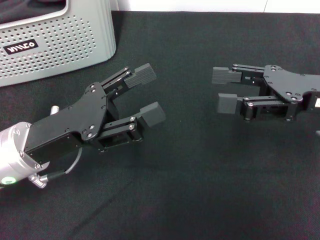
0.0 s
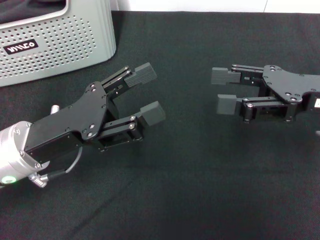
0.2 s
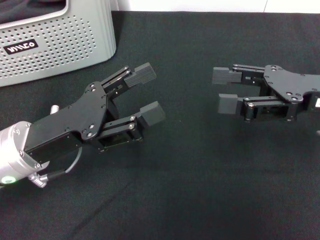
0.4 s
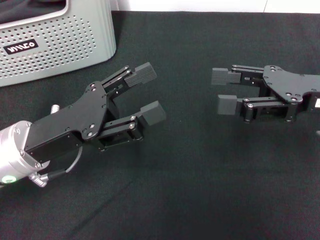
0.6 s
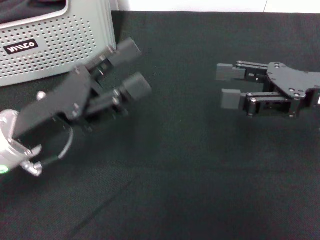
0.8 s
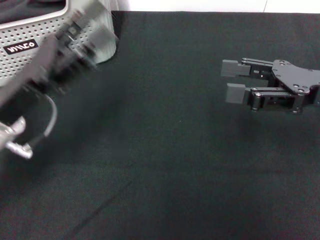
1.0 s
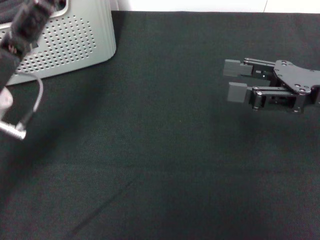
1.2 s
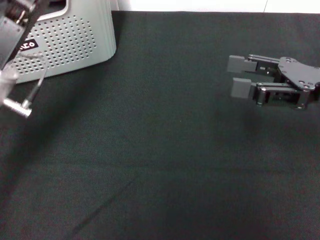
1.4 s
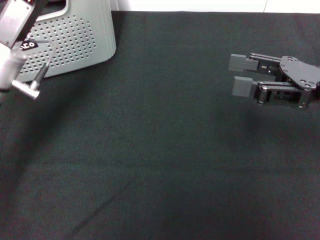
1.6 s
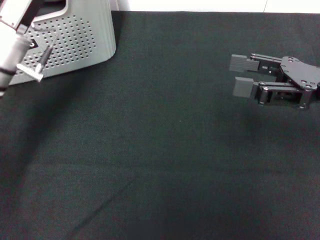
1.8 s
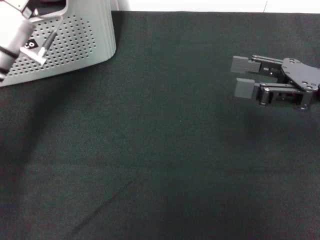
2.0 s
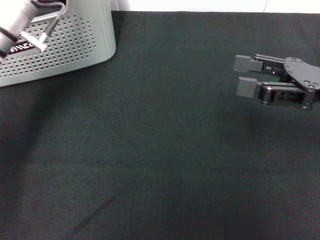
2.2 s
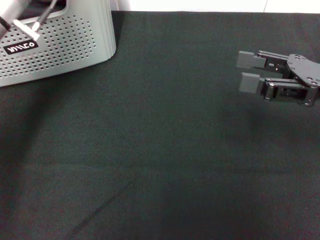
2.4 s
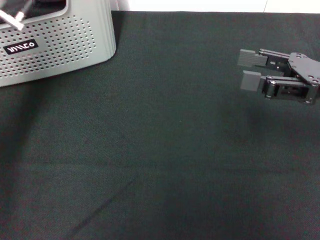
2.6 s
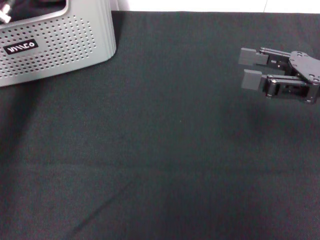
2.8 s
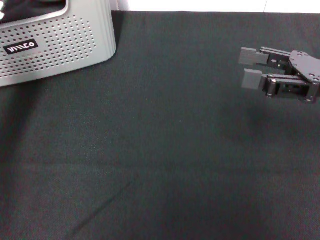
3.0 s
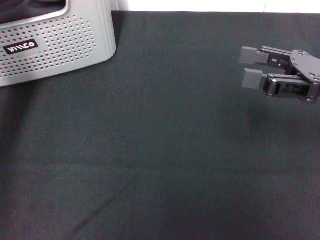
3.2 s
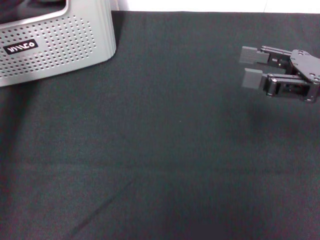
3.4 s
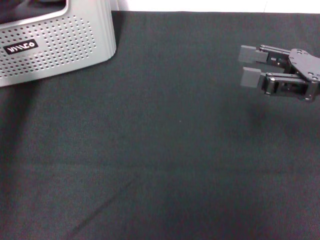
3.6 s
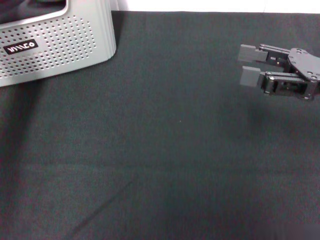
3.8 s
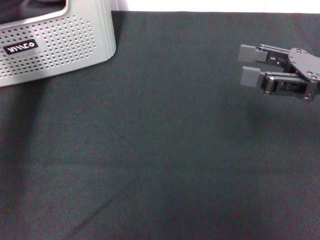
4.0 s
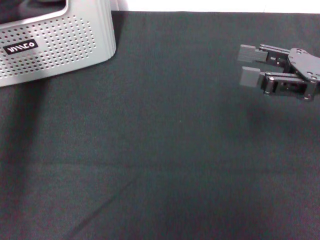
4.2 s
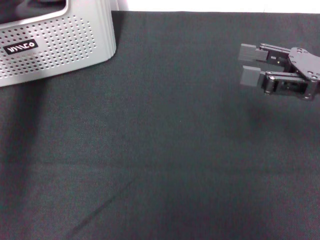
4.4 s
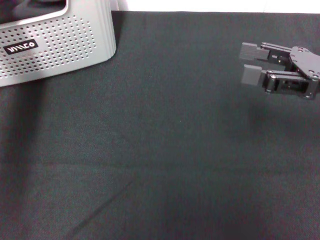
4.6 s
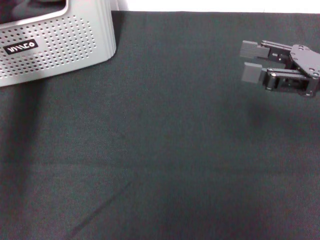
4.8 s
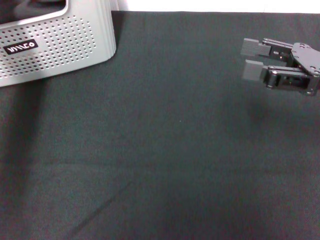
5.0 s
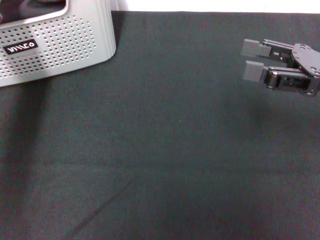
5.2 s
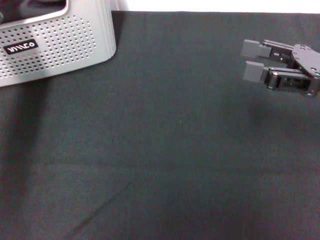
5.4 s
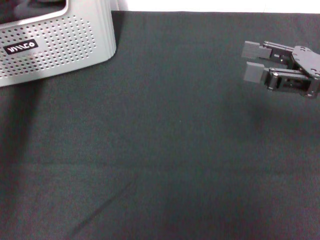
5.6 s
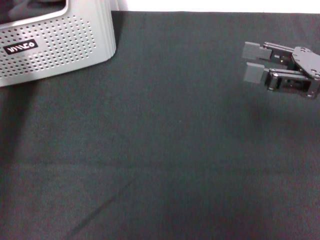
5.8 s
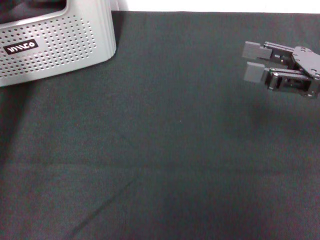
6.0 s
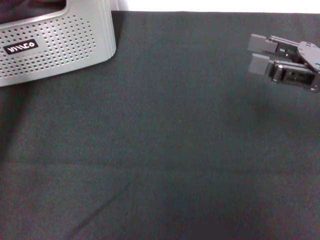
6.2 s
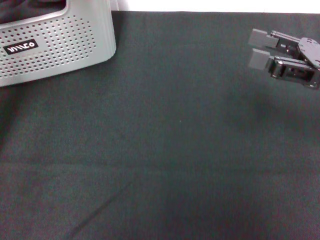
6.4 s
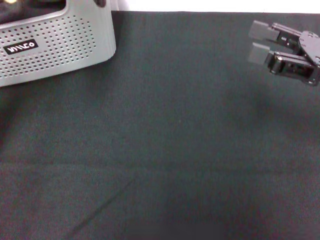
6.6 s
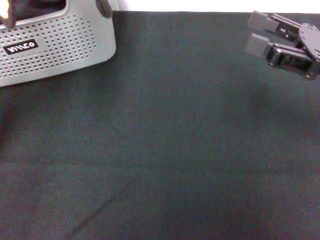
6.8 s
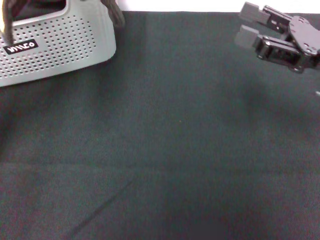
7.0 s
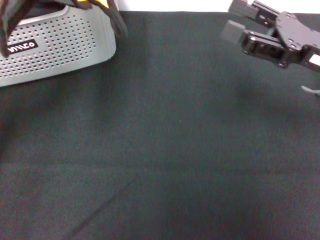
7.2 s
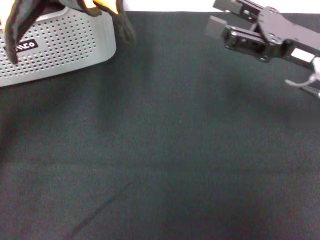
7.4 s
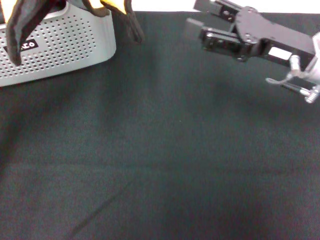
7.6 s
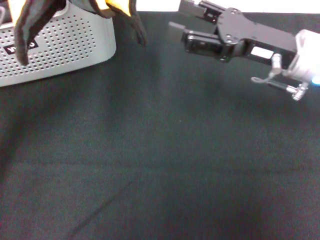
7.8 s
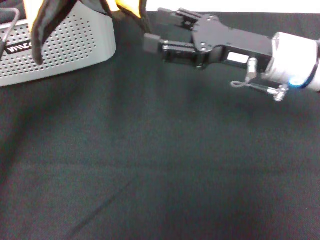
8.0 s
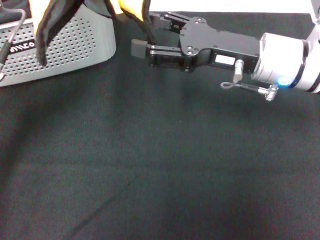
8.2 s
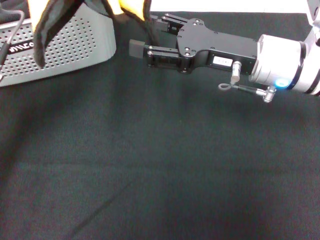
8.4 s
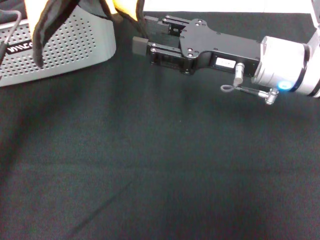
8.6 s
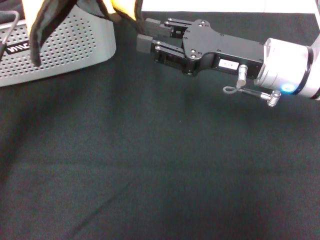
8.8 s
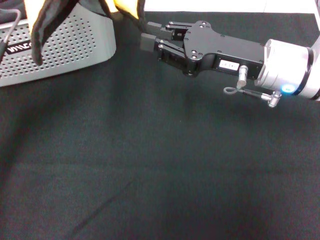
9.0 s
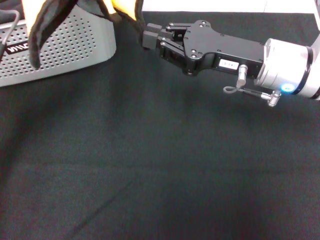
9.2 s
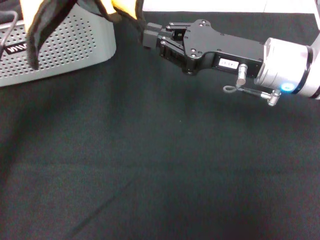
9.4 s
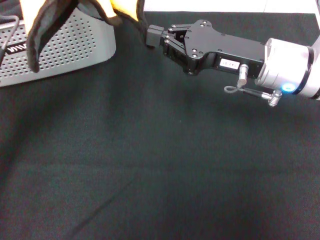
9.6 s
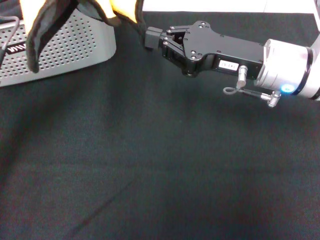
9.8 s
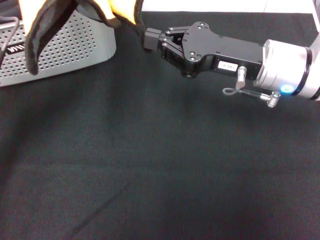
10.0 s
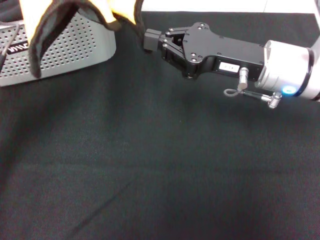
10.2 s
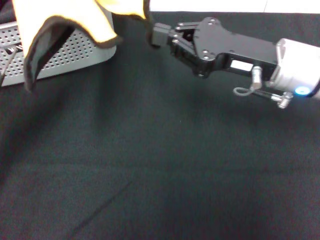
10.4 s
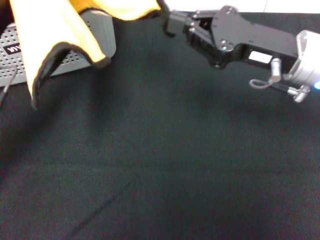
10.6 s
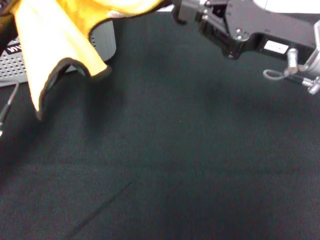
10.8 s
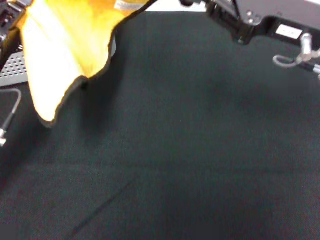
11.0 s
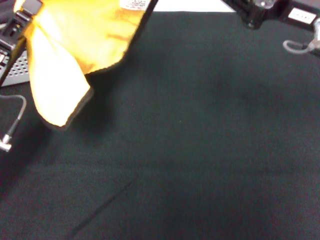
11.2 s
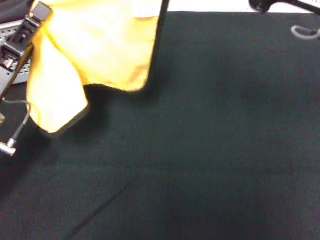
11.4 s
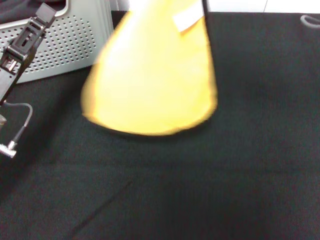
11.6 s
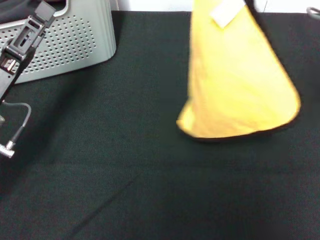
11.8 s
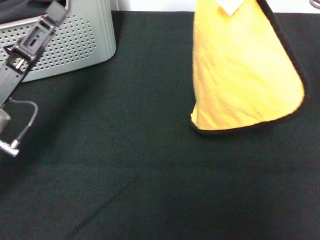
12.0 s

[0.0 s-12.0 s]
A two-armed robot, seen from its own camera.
Task of the whole recording: pick up the towel from the storage box and lay it flat on the black tablecloth.
Step, 0.0 to 5.2 s: Pick up a towel with the left gripper.
Step, 5.6 to 10.0 s: Spread the towel flat with the left gripper.
0.0 to 1.6 s: The left gripper travels forward by some 10 cm.
1.6 to 3.0 s: The left gripper heads forward and upward, covering about 10 cm.
4.4 to 6.0 s: The left gripper is displaced backward by roughly 5 cm, and closes its fingers.
6.0 to 7.6 s: The left gripper goes some 5 cm backward, while the right gripper is displaced to the left by roughly 5 cm.
7.6 to 9.0 s: The right gripper is displaced to the left by about 5 cm, and closes up.
9.0 to 10.4 s: The right gripper closes its fingers.
10.4 to 12.0 s: The right gripper moves upward and to the right, approximately 10 cm, while the left gripper travels downward by approximately 5 cm, and opens up.

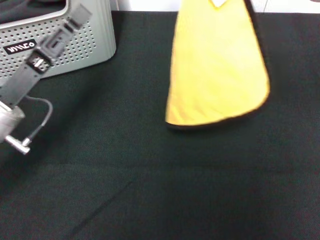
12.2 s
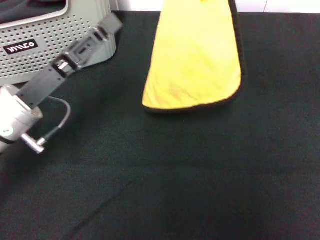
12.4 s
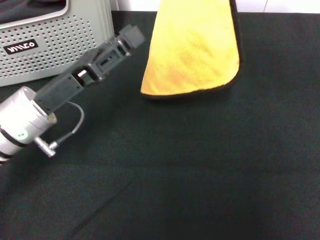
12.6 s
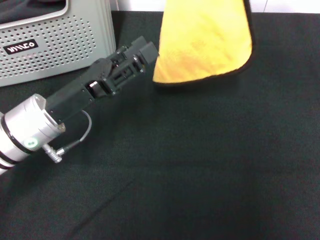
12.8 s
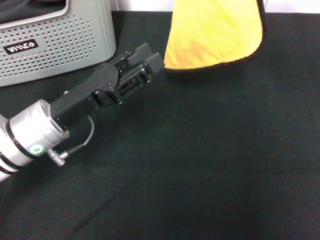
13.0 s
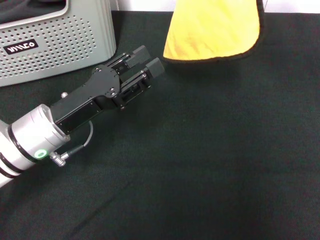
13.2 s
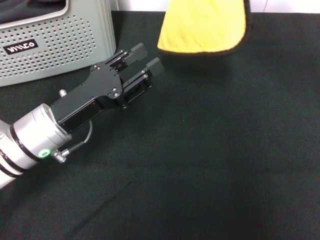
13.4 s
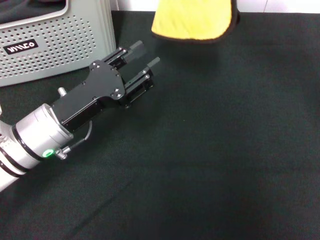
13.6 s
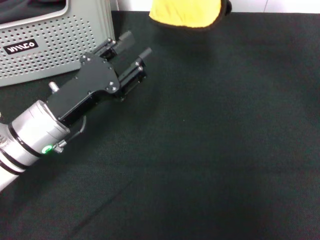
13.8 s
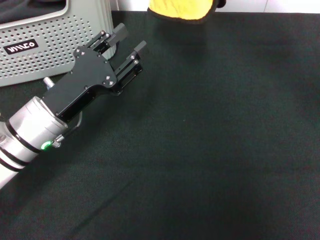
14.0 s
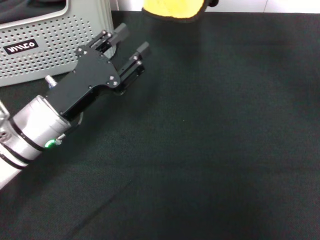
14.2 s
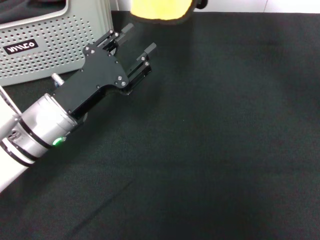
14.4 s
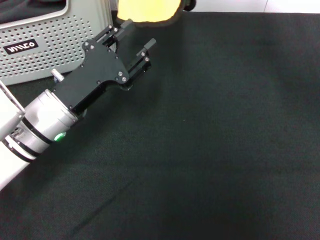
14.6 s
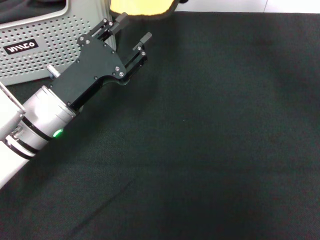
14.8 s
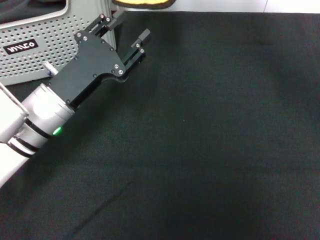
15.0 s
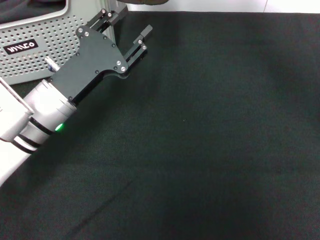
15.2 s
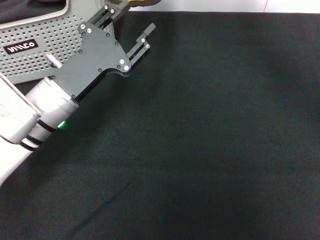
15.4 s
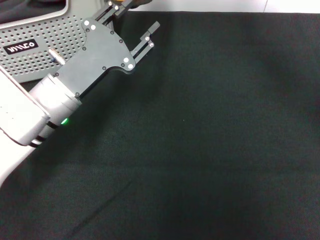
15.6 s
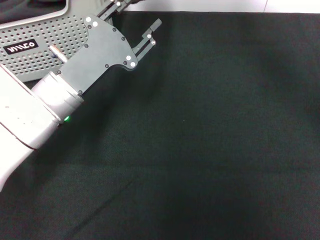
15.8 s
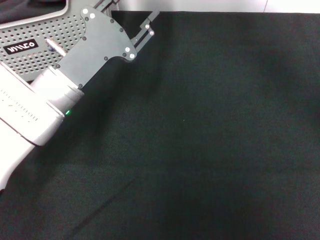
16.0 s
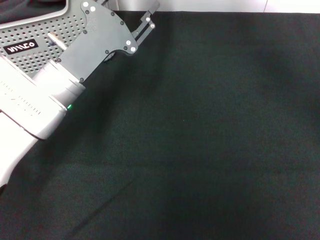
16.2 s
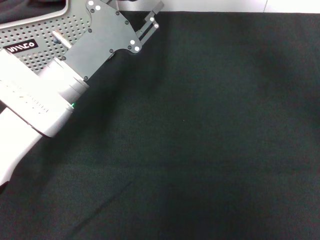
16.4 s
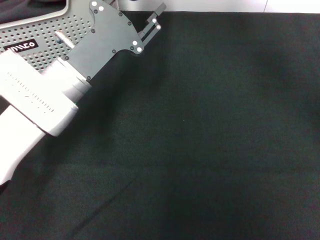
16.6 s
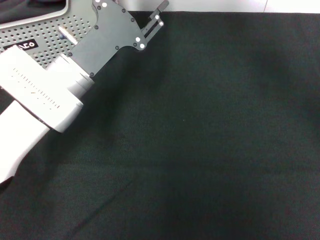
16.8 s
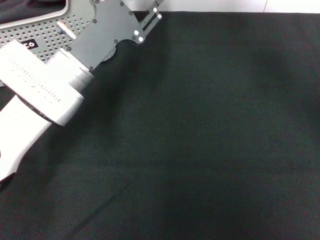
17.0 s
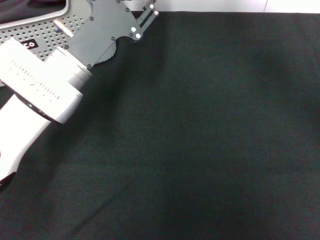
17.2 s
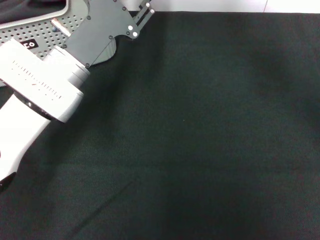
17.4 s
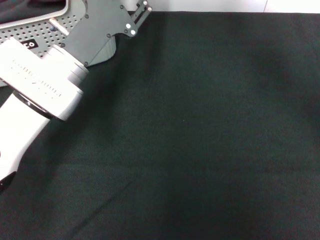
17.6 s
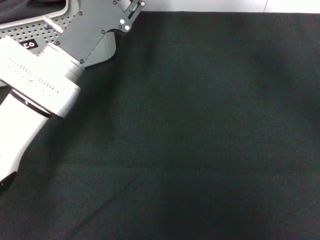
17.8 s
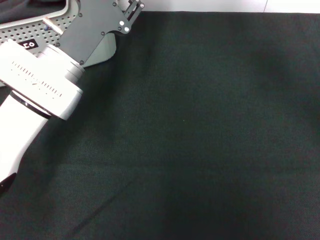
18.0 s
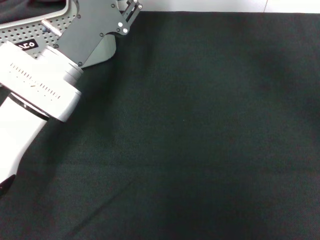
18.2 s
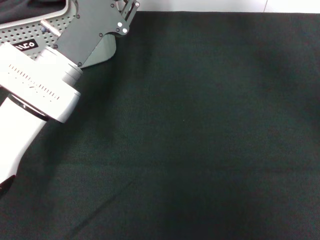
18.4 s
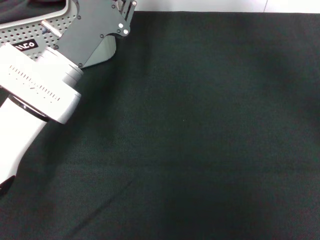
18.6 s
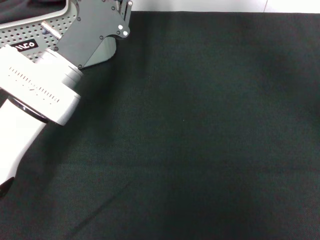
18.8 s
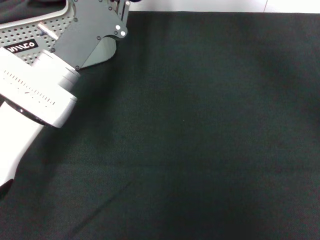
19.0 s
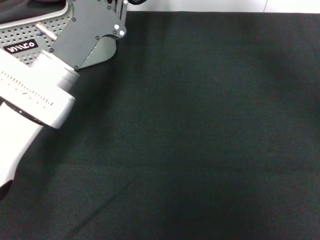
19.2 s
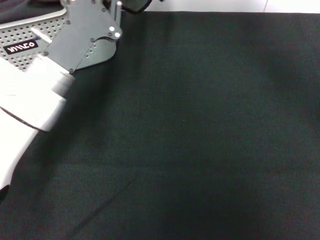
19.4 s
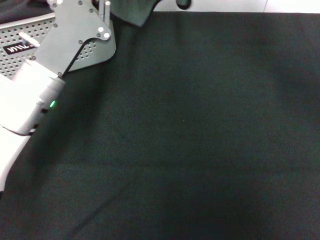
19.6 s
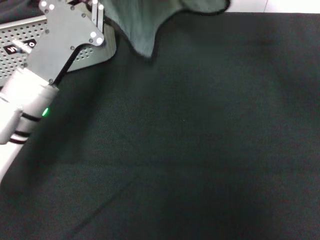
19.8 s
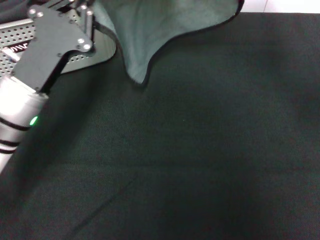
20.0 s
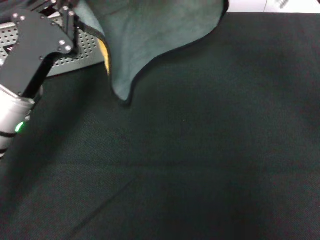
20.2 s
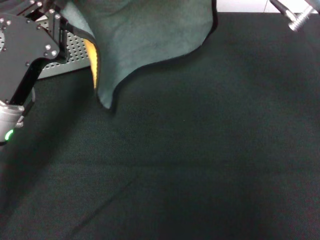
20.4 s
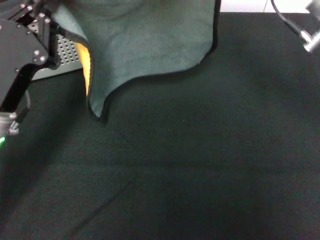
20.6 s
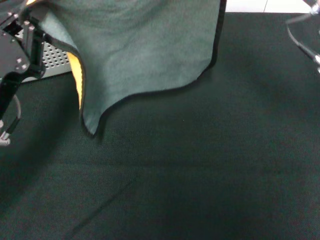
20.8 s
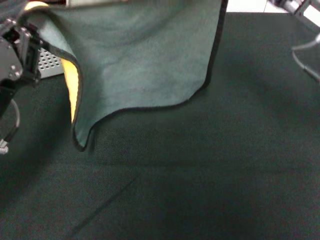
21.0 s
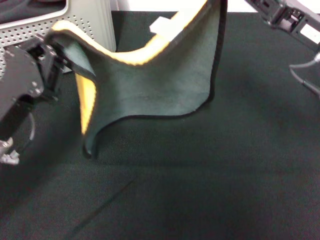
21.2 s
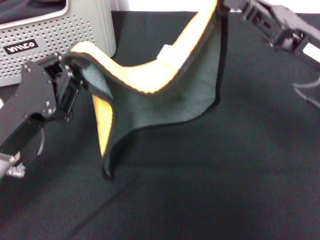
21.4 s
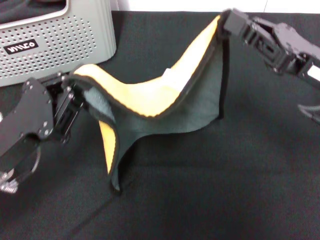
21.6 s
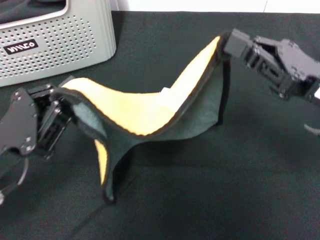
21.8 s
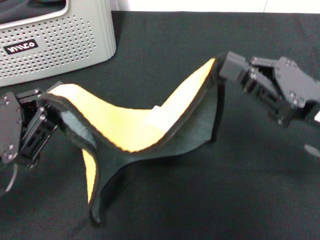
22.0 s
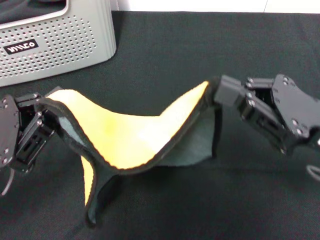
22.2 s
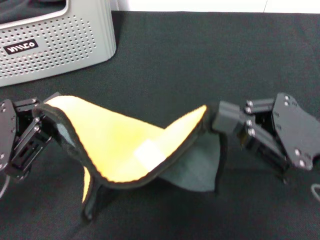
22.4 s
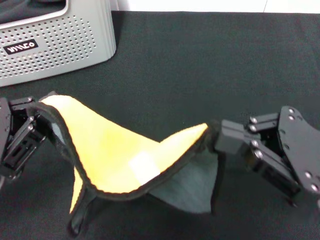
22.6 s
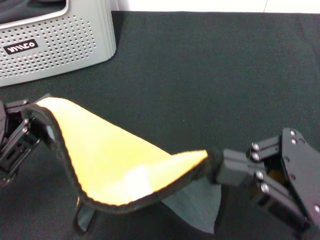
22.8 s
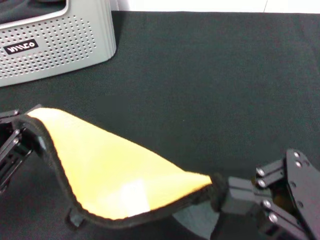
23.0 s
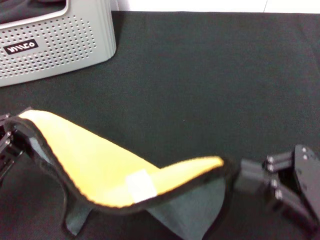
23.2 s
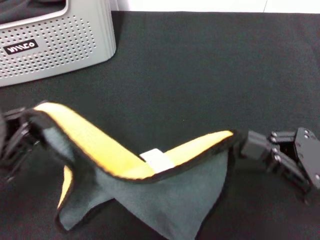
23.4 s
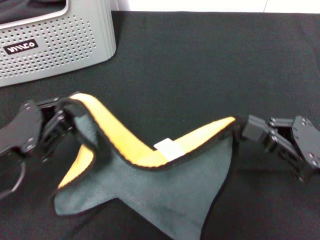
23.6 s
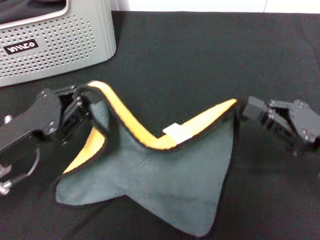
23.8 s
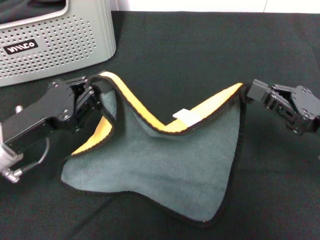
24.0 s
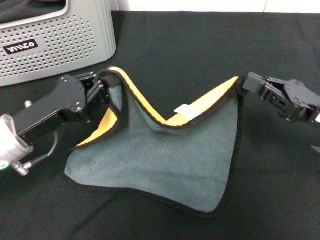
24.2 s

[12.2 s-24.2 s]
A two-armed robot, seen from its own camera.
Task of the whole recording: pick up the towel from the storage box and lay it flat on the black tablecloth.
12.2 to 13.8 s: The right gripper heads forward and to the left, covering some 10 cm. Meanwhile the left gripper changes place by about 5 cm.
13.8 to 15.2 s: The right gripper moves to the left, some 5 cm.
16.6 to 18.2 s: The grippers make only small movements.
18.2 to 19.8 s: The right gripper is displaced downward and to the right by about 10 cm. The left gripper closes.
19.8 to 21.2 s: The right gripper shifts roughly 20 cm backward, downward and to the right. Meanwhile the left gripper shifts some 5 cm backward.
21.2 to 22.6 s: The left gripper shifts by about 5 cm, while the right gripper moves backward, approximately 10 cm.
22.6 to 24.2 s: The right gripper shifts some 10 cm forward and downward; the left gripper goes approximately 5 cm forward.
